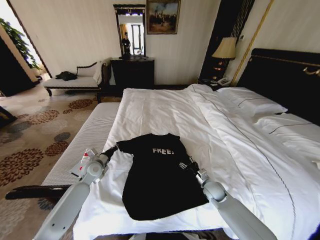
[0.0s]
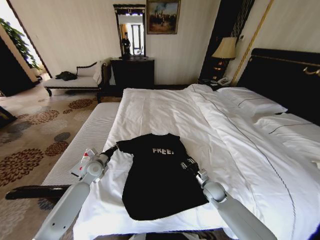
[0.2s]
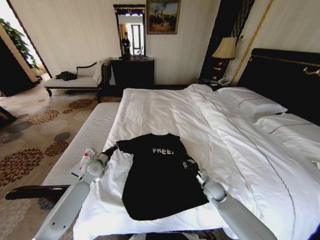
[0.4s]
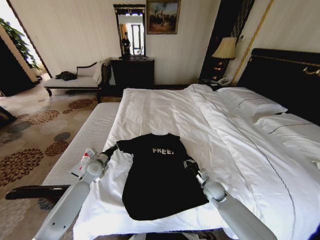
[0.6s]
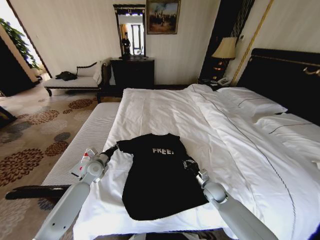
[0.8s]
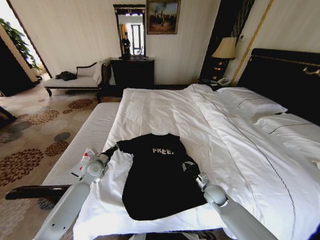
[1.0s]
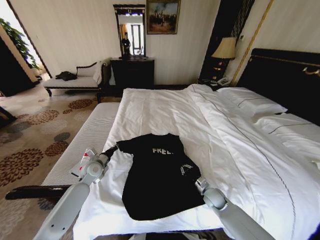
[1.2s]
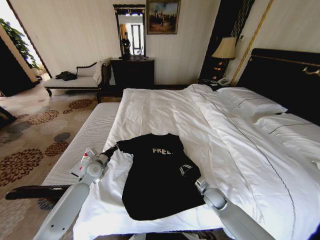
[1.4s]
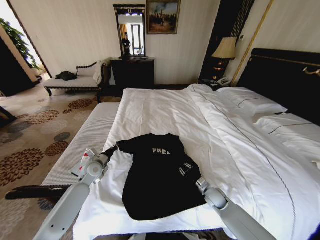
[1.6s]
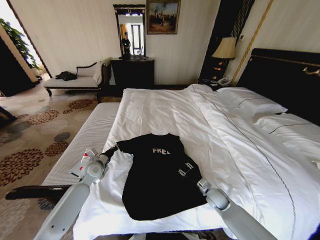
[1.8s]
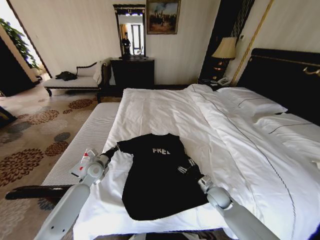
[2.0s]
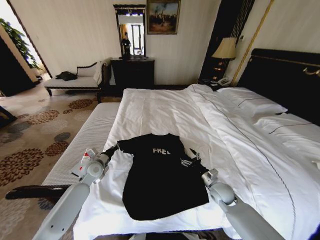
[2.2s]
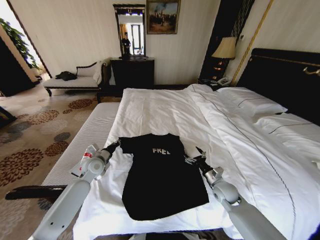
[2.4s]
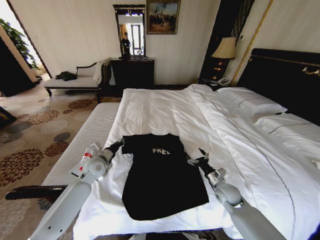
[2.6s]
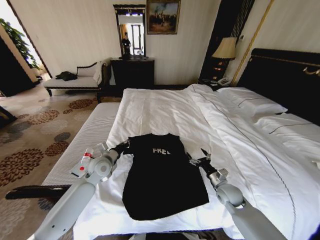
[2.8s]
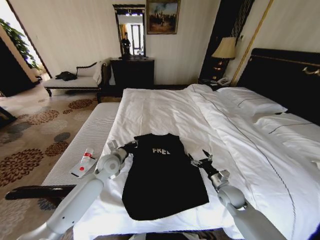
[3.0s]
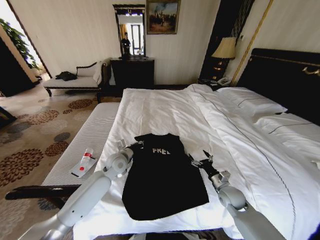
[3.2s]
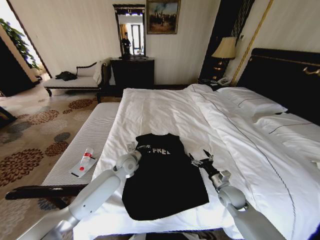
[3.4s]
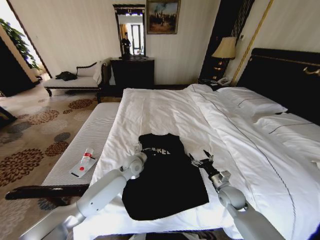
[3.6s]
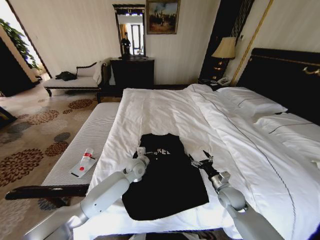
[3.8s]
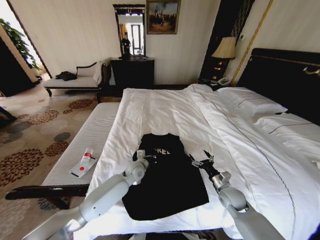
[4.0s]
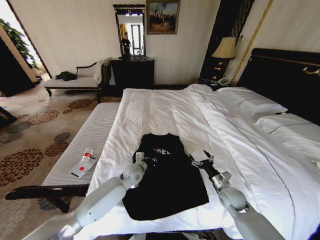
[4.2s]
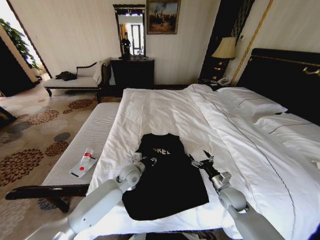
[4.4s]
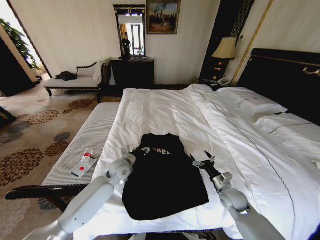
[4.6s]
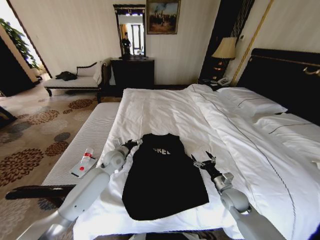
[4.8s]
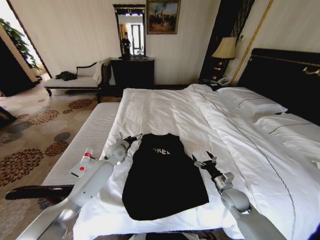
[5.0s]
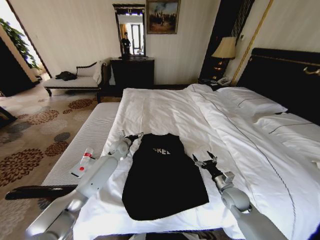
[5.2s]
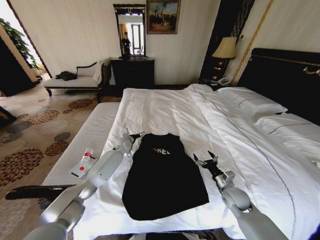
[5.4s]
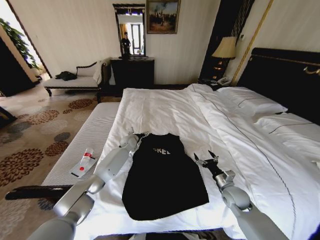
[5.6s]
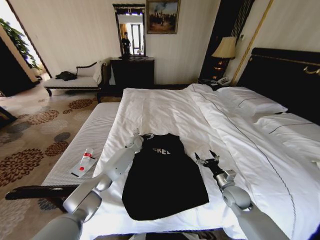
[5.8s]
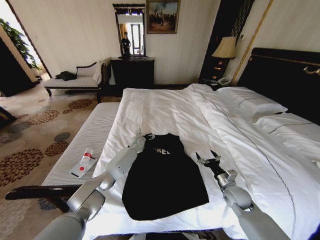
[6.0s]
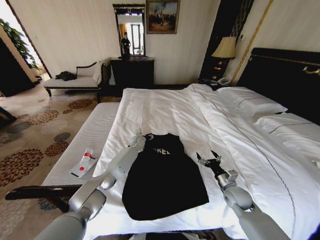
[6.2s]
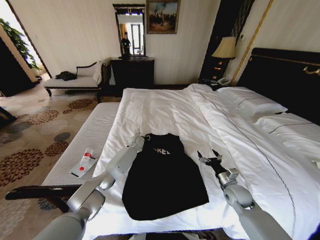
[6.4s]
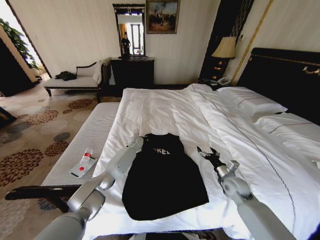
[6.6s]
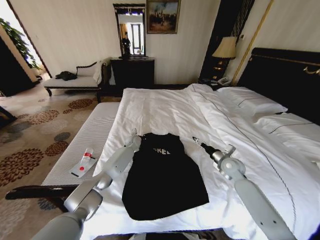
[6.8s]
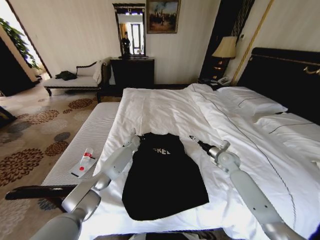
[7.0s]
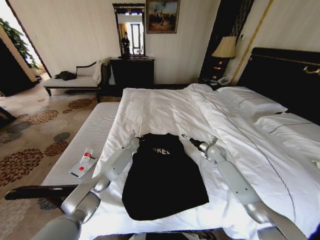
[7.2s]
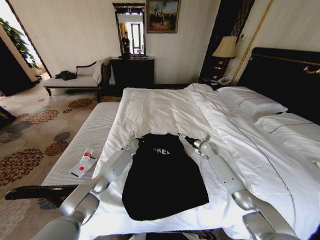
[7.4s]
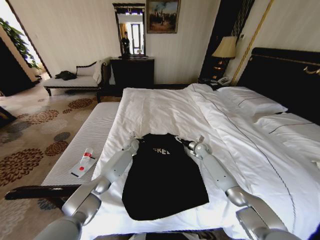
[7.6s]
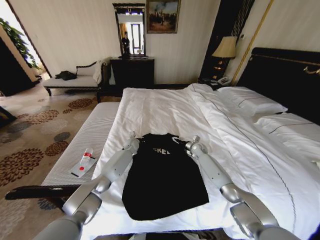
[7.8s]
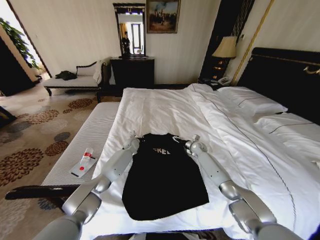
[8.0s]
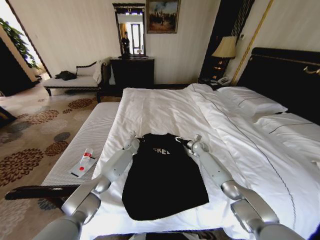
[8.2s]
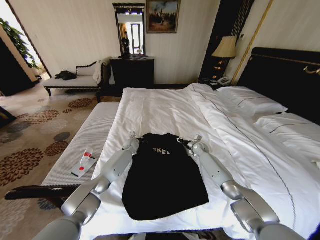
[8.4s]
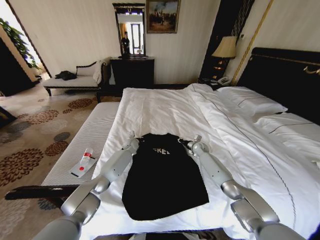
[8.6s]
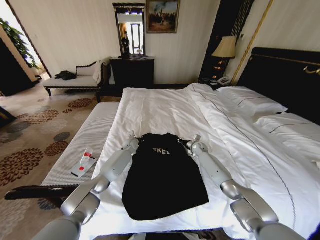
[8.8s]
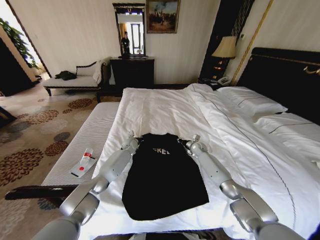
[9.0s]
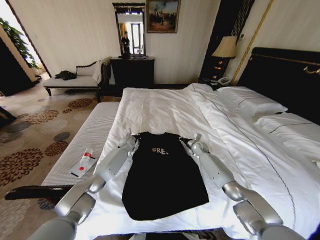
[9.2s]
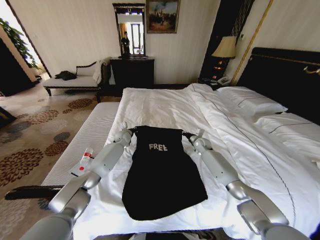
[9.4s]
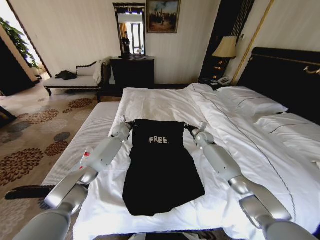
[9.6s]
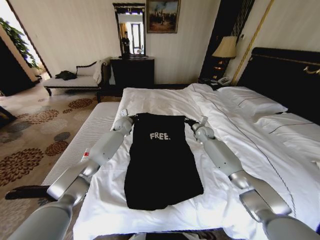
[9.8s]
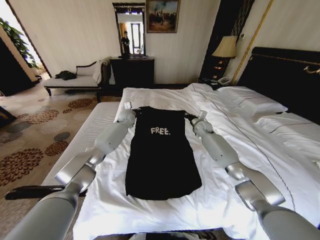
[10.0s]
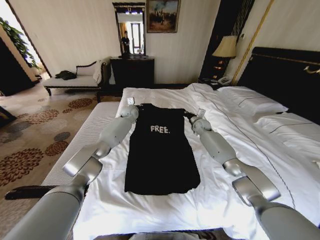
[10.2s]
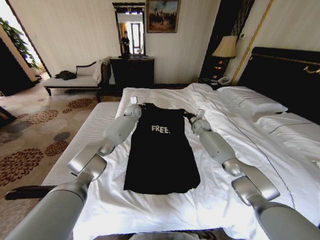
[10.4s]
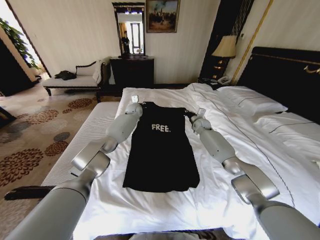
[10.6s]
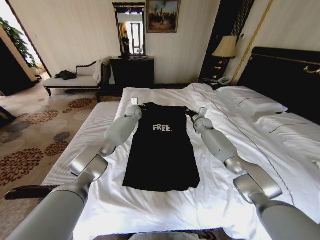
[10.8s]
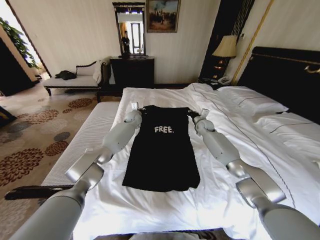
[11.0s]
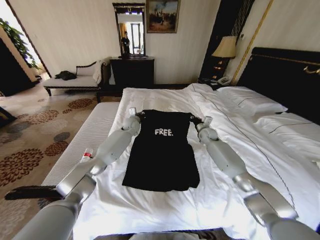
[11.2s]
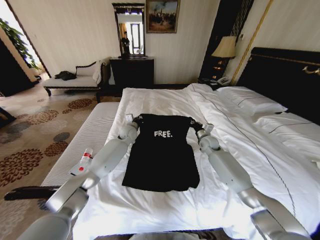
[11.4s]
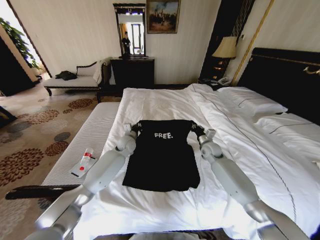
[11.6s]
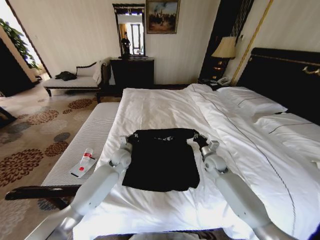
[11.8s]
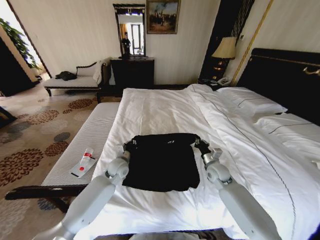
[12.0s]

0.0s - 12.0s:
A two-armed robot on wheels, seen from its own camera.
Task of the whole recording: Fold the clothes on the bed.
0.0s - 1.6s: The right gripper closes its fingers.
1.6s - 3.0s: The right gripper goes approximately 5 cm upward, and opens, while the left gripper is displaced to the right and upward by some 10 cm.
3.0s - 4.4s: The left gripper goes roughly 10 cm to the right and downward, and opens its fingers.
4.4s - 6.0s: The left gripper shifts about 20 cm forward.
6.0s - 7.6s: The right gripper is displaced forward by about 25 cm. Meanwhile the left gripper closes.
7.6s - 9.0s: The right gripper closes.
9.0s - 10.4s: Both grippers move upward and forward, approximately 20 cm.
10.4s - 12.0s: The left gripper heads backward and downward, covering approximately 30 cm; the right gripper moves backward, approximately 25 cm.

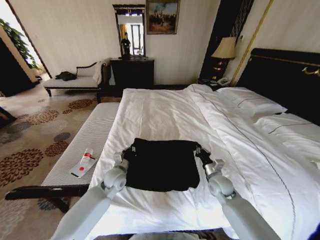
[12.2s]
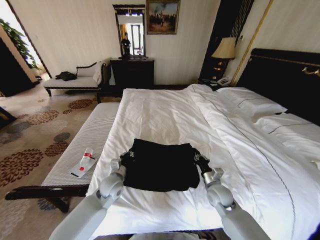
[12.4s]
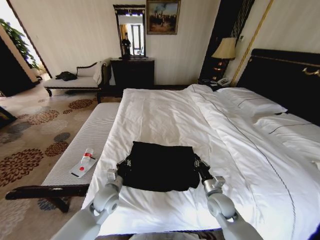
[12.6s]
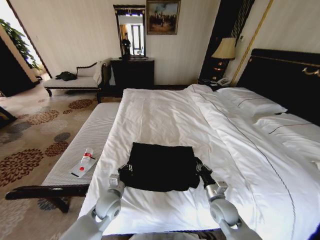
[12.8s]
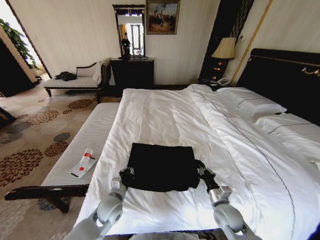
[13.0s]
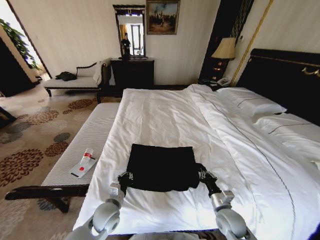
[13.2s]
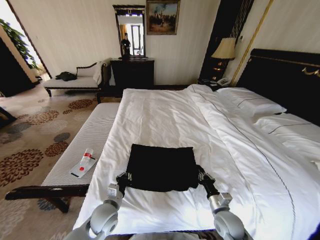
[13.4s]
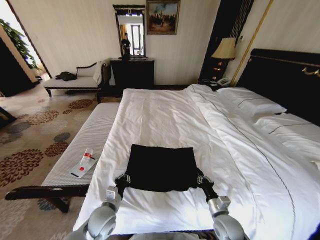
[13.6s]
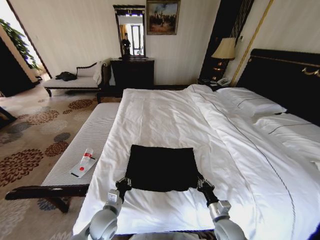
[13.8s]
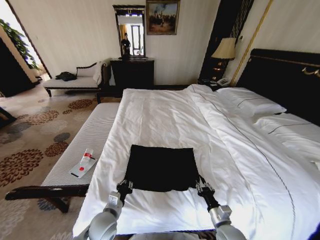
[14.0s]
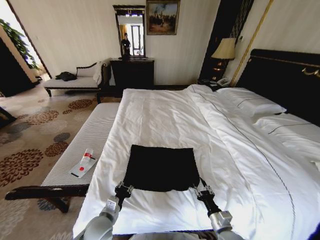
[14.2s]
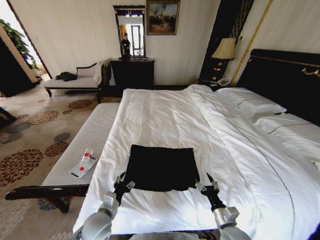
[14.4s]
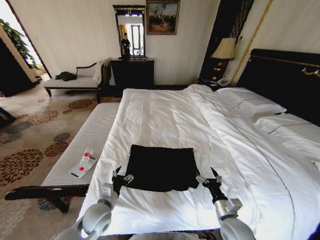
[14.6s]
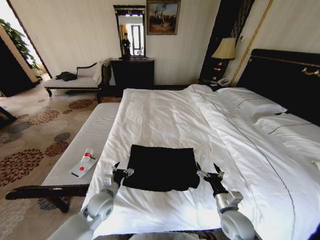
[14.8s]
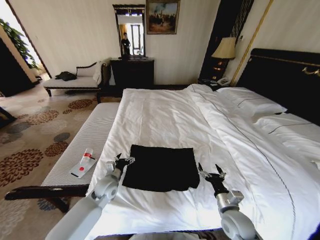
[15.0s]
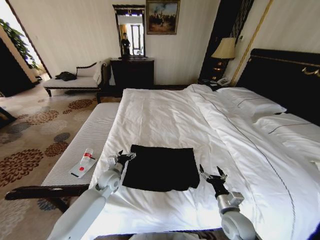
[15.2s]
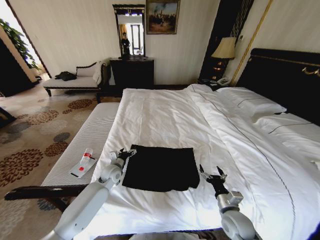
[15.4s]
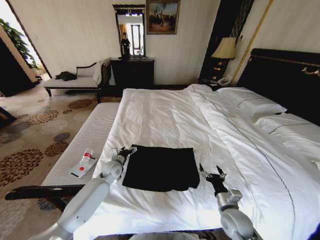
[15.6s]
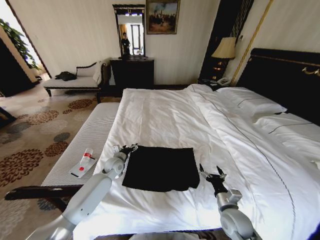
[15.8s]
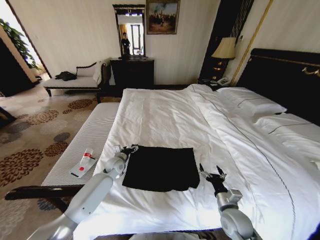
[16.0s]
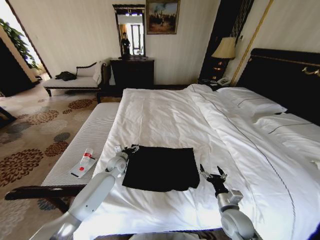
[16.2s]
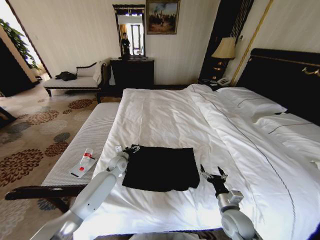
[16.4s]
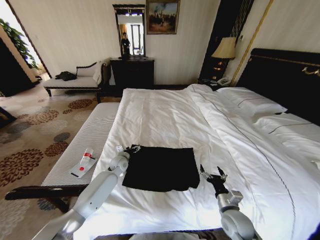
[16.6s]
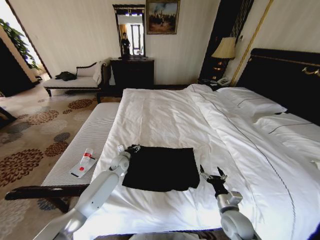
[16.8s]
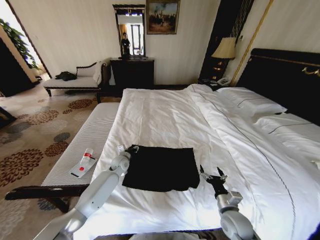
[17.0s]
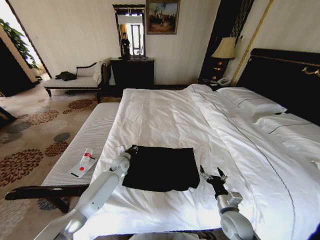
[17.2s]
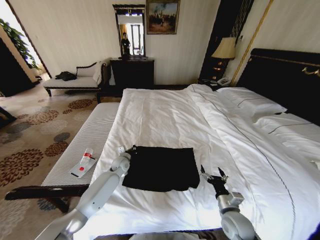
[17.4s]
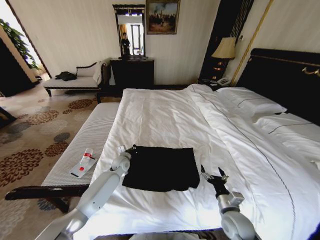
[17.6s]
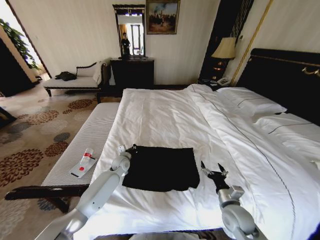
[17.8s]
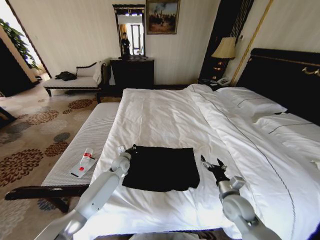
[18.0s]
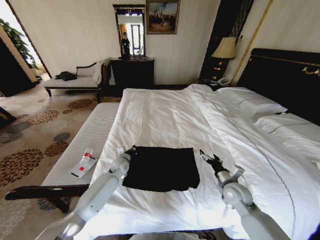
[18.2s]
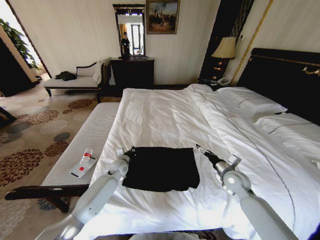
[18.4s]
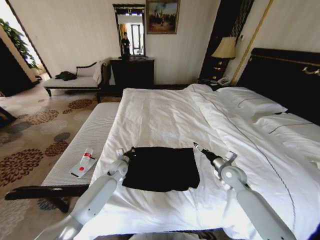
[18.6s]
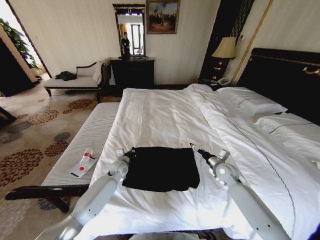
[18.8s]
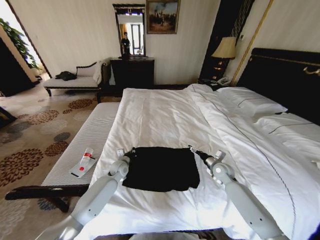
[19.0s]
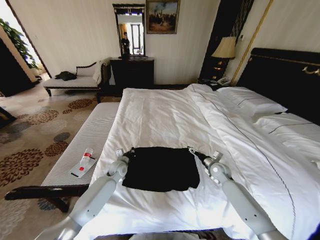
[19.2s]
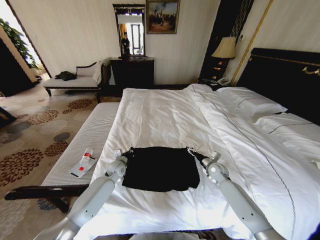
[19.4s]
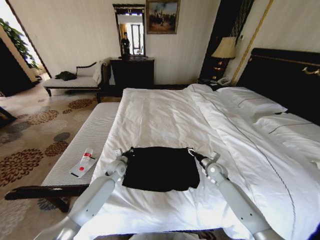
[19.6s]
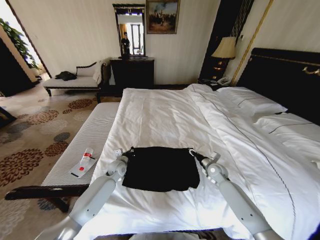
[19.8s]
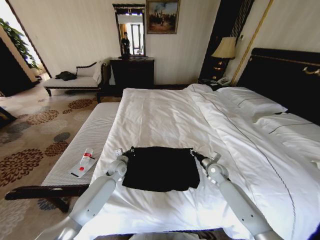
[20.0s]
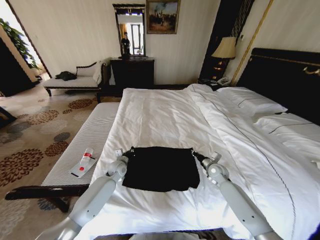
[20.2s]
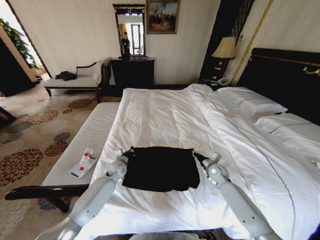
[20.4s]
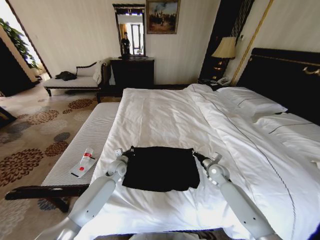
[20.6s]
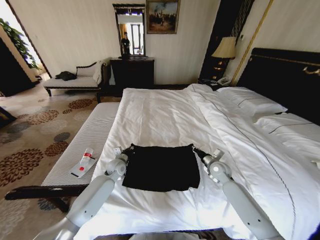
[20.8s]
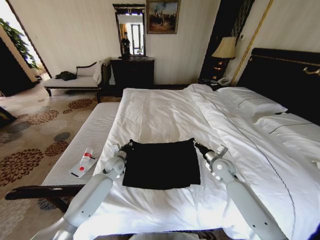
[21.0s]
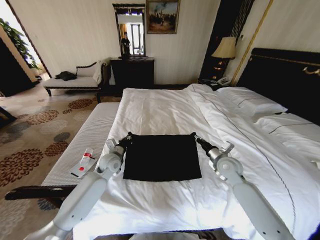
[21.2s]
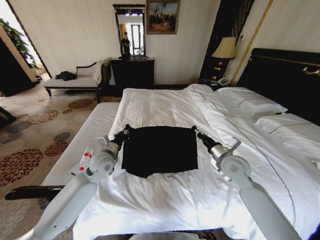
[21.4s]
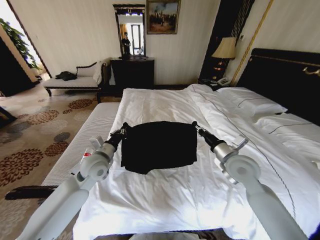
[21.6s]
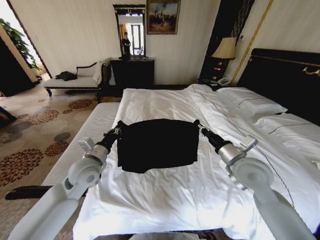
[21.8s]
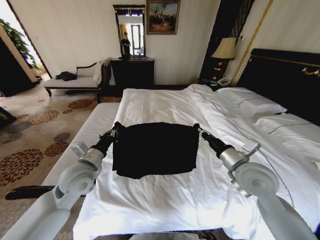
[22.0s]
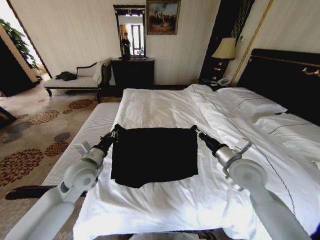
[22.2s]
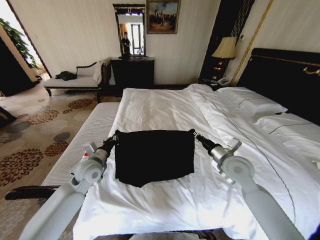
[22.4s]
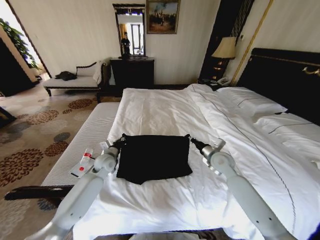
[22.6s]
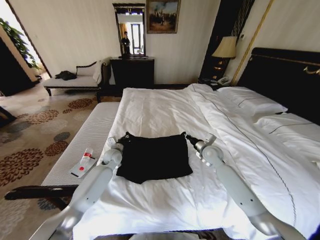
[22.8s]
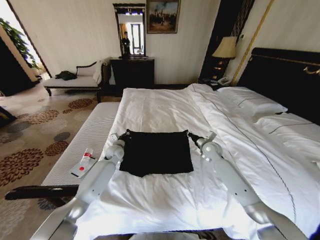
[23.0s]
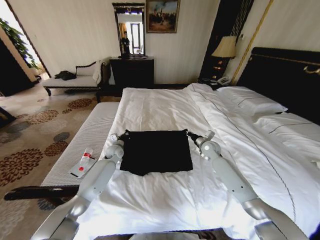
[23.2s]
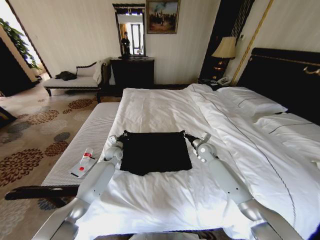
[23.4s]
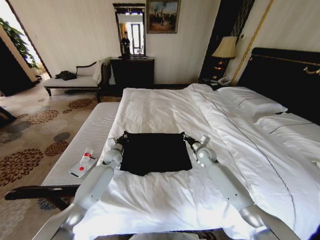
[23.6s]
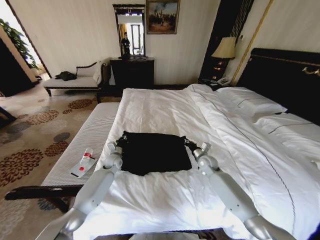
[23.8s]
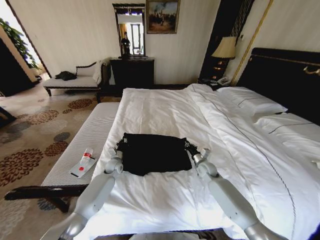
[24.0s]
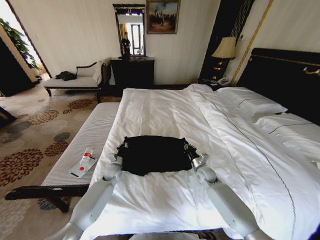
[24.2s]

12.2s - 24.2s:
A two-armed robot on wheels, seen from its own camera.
Task of the whole recording: Fold the clothes on the bed.
12.2s - 13.8s: The right gripper travels backward and downward by roughly 20 cm. Meanwhile the left gripper travels backward by some 15 cm.
13.8s - 15.2s: The left gripper moves forward, roughly 15 cm, and opens, while the right gripper is displaced upward by roughly 5 cm, and opens its fingers.
15.2s - 16.6s: The left gripper heads forward, covering roughly 10 cm.
16.6s - 18.2s: The left gripper closes up; the right gripper is displaced forward and upward by roughly 10 cm.
18.2s - 19.8s: The right gripper moves forward and downward, some 15 cm, and closes up.
19.8s - 21.2s: Both grippers move upward, roughly 10 cm. The right gripper closes.
21.2s - 22.6s: The right gripper goes backward and returns, approximately 10 cm each way; the left gripper travels backward and back again, roughly 10 cm each way.
22.6s - 24.2s: The two grippers go approximately 15 cm downward.
